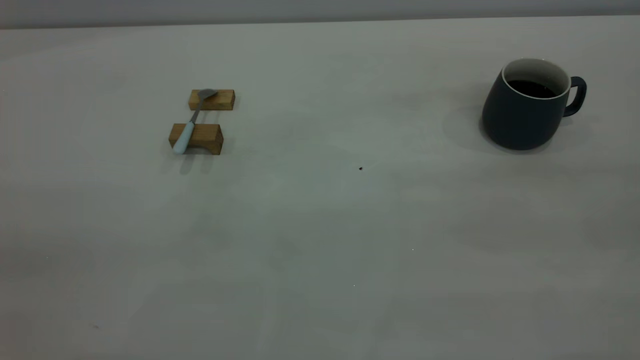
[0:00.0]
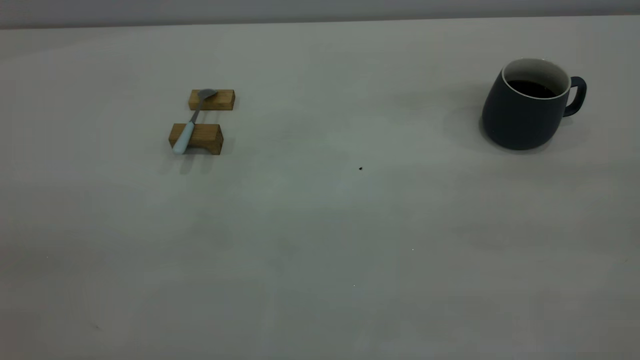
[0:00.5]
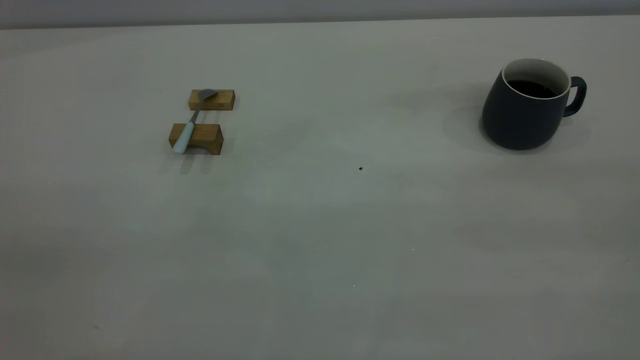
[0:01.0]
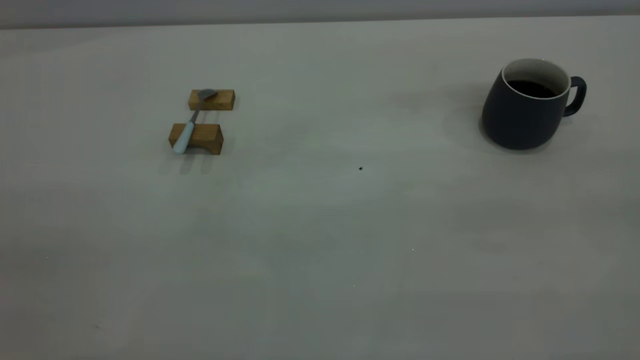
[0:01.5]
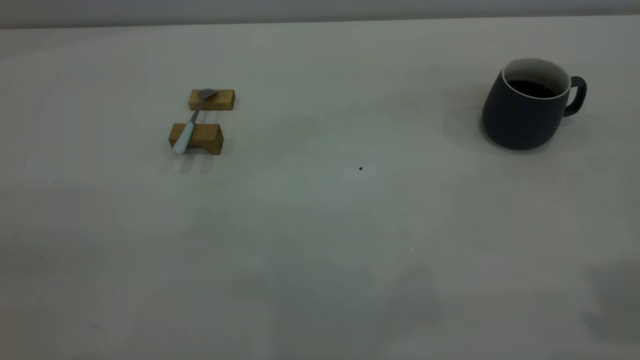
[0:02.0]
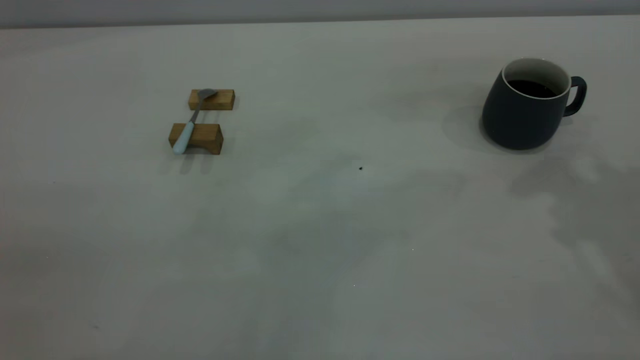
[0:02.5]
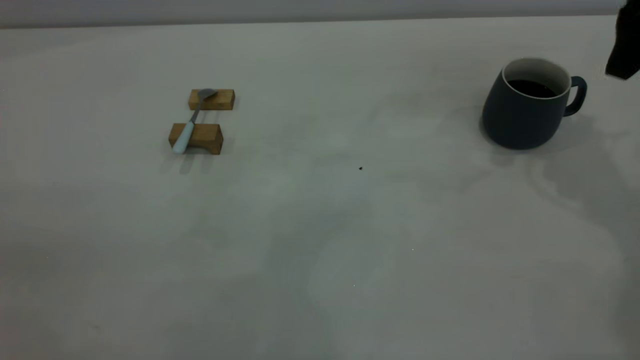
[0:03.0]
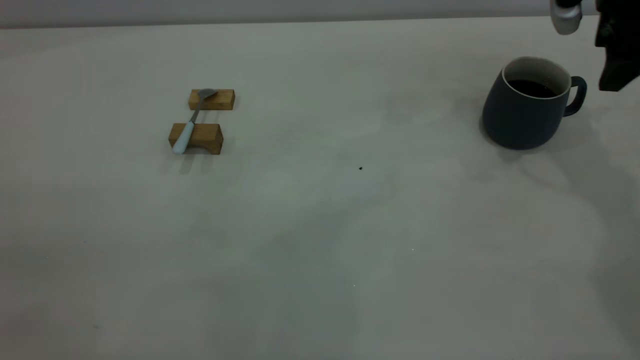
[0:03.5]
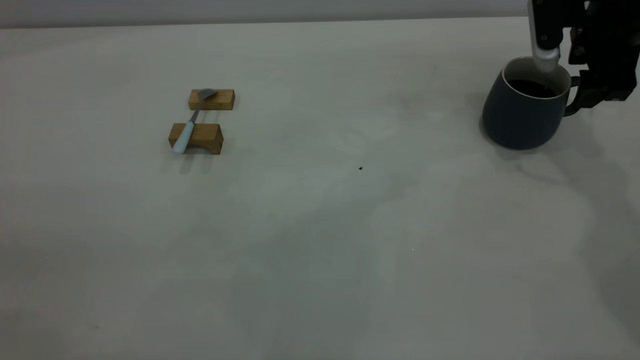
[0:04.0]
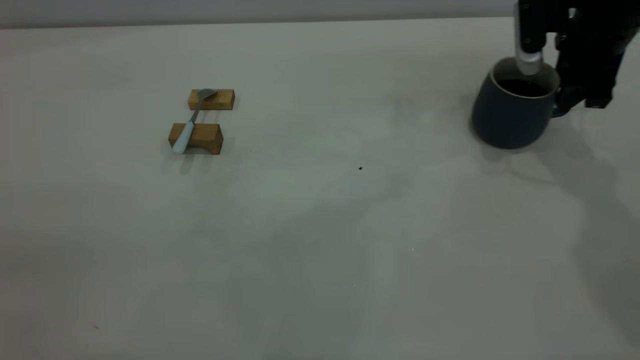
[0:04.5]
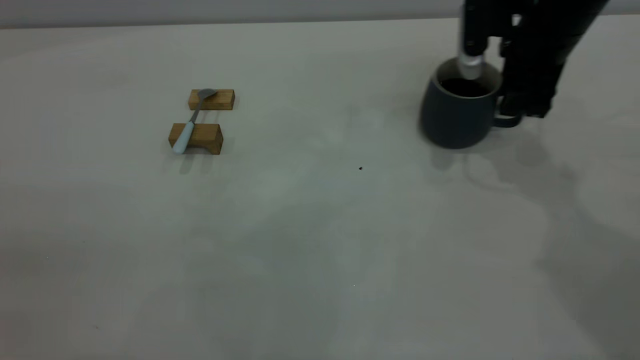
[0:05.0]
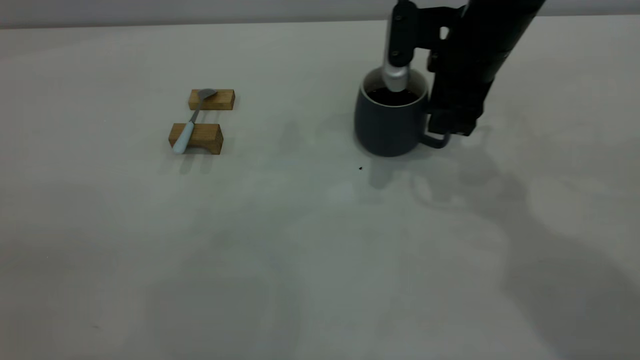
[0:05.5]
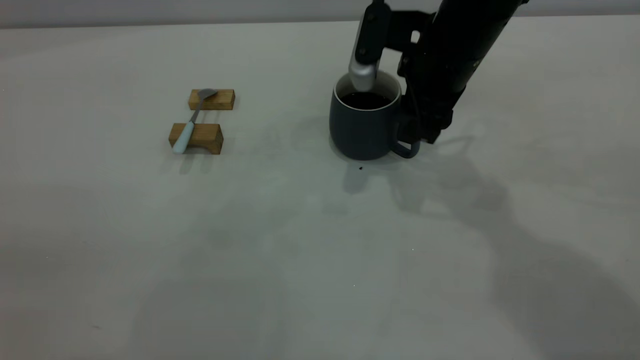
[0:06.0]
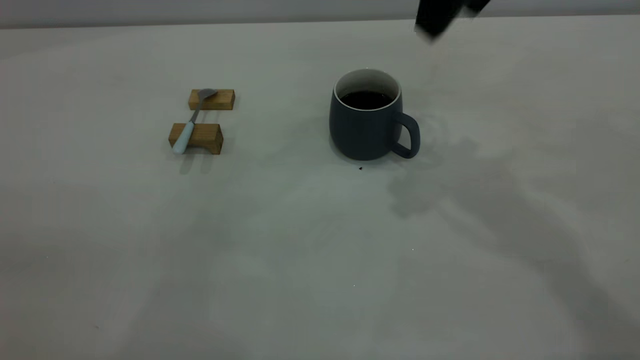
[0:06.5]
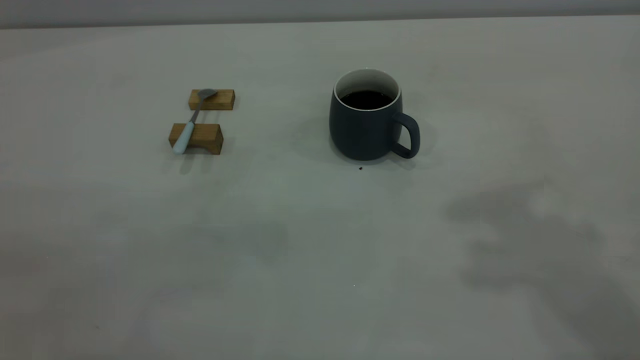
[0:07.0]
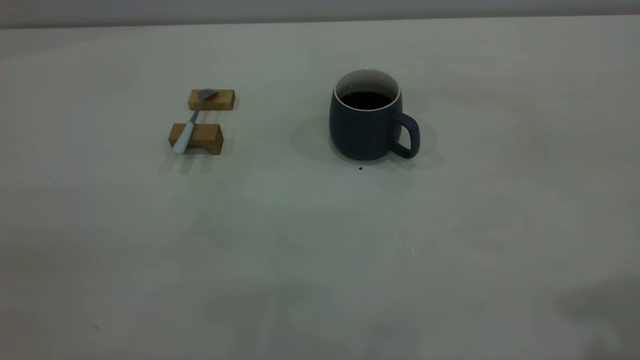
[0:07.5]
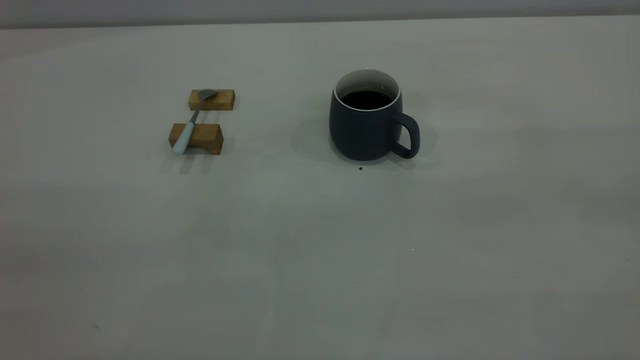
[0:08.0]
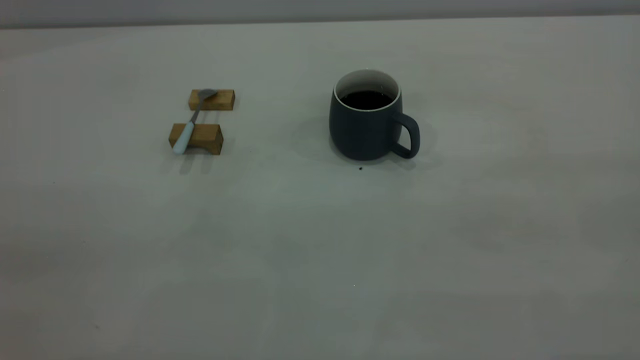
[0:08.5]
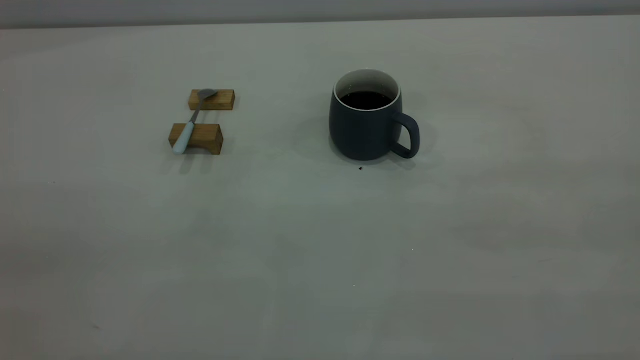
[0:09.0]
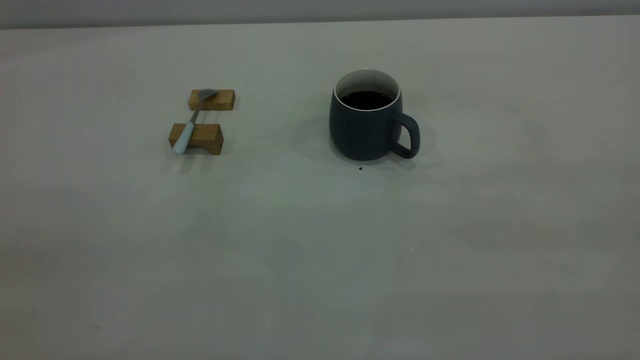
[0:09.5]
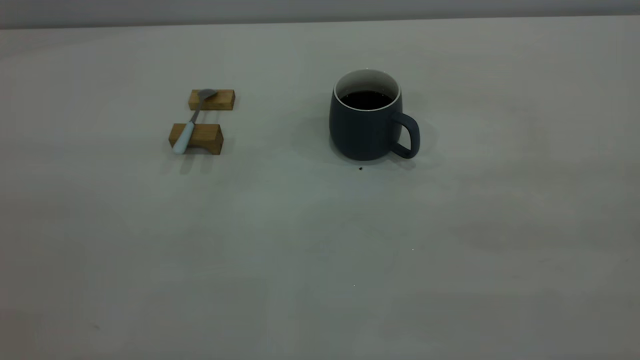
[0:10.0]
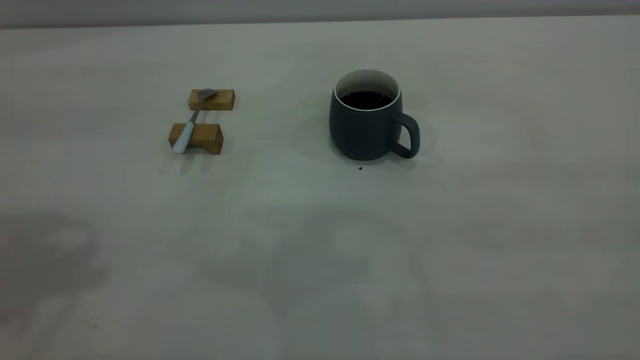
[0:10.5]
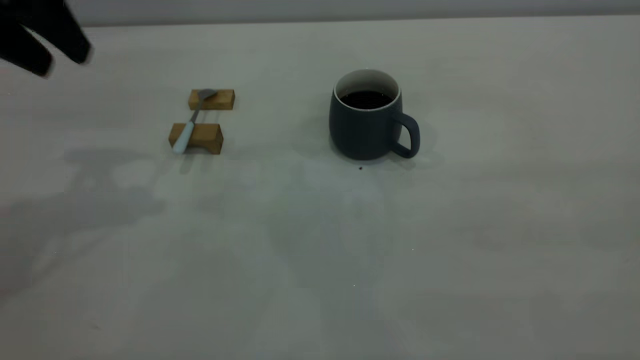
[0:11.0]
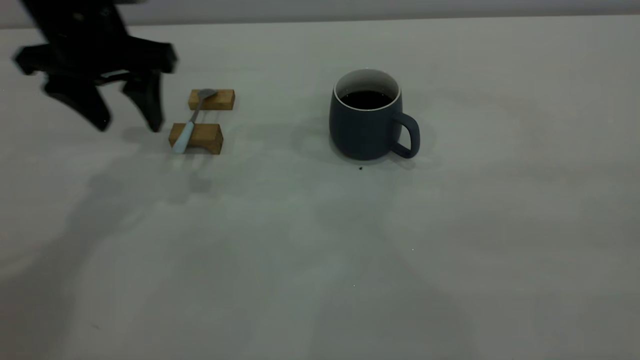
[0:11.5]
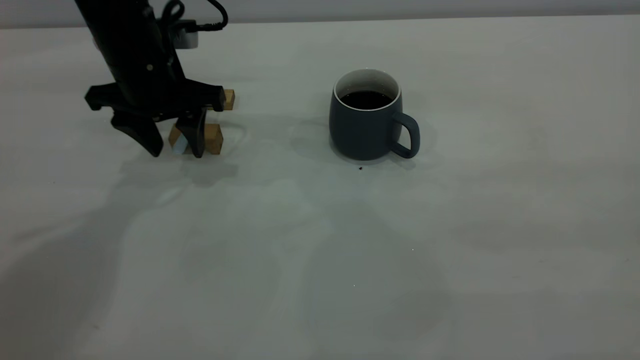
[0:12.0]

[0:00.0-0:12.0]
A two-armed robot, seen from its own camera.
Step, 0:00.0 to 0:06.0: Move the cup with coffee to the center of view.
0:02.0 to 0:04.0: The right gripper is displaced forward and downward by some 35 cm.
0:04.0 to 0:06.0: The right gripper travels to the left by about 20 cm, and closes up.
0:06.0 to 0:08.0: The right gripper heads backward, upward and to the right, covering some 40 cm, and opens.
0:10.0 to 0:12.0: The left gripper shifts about 40 cm forward and downward.

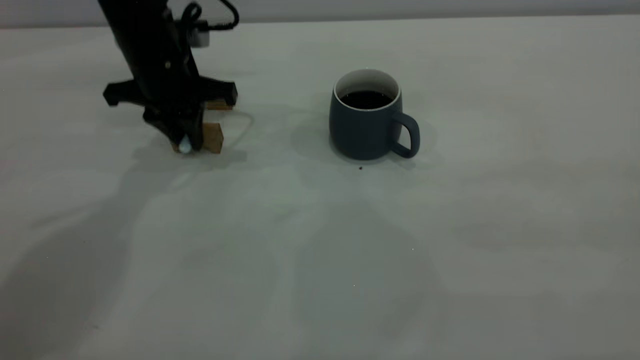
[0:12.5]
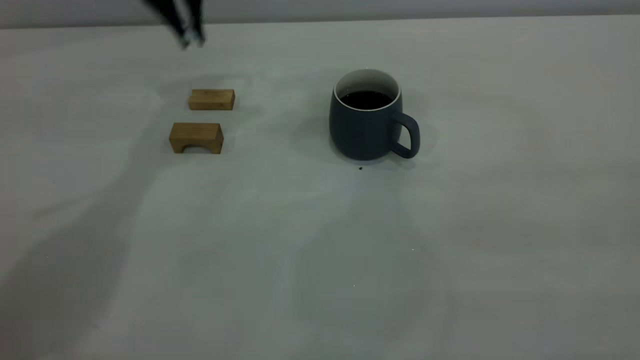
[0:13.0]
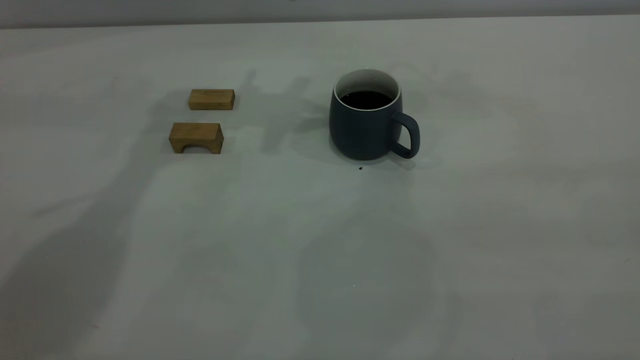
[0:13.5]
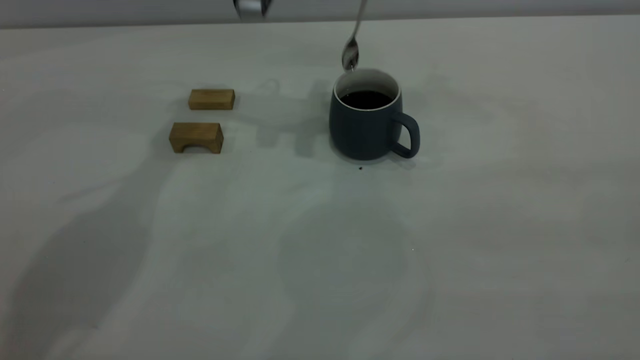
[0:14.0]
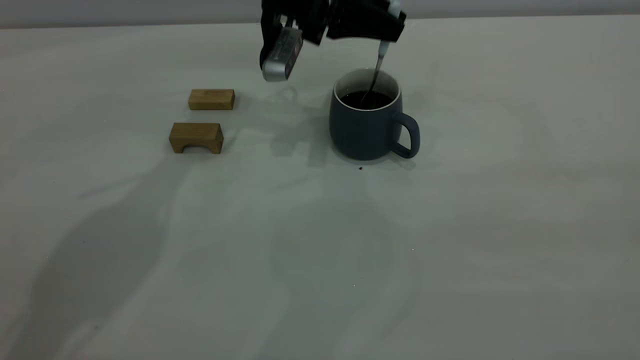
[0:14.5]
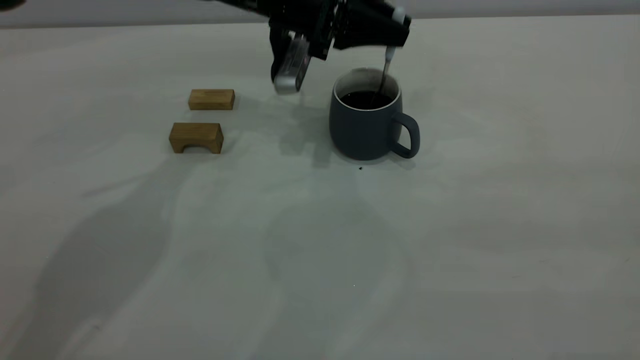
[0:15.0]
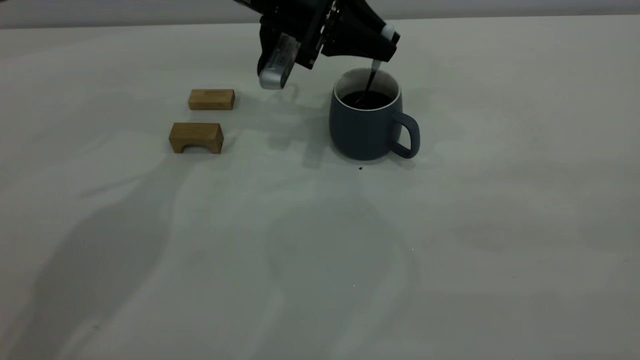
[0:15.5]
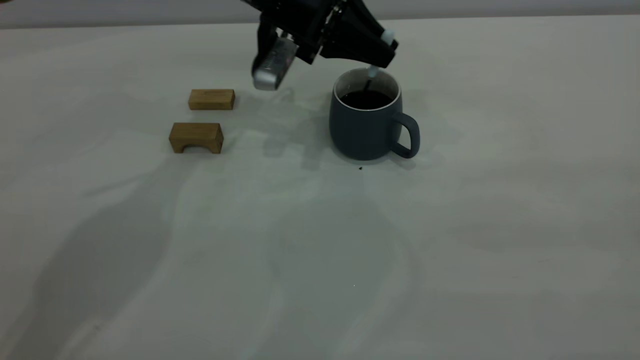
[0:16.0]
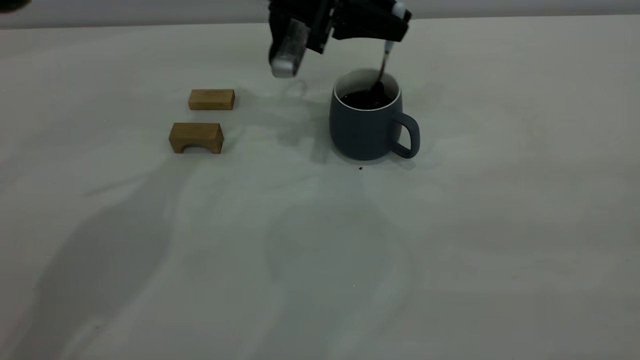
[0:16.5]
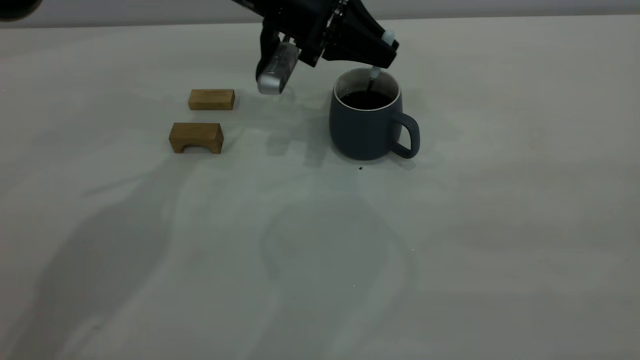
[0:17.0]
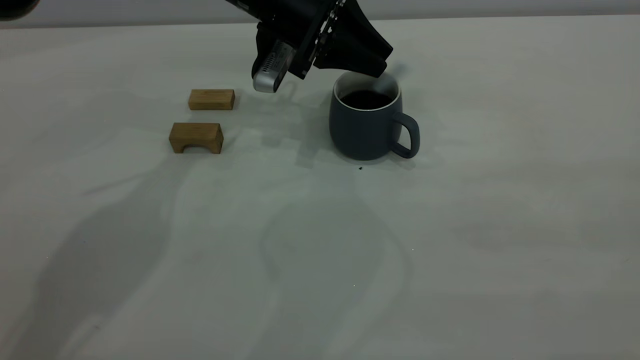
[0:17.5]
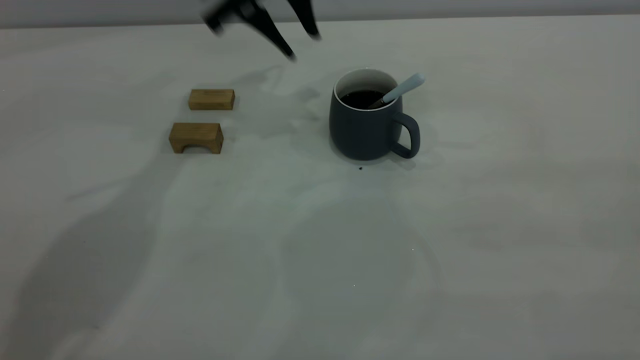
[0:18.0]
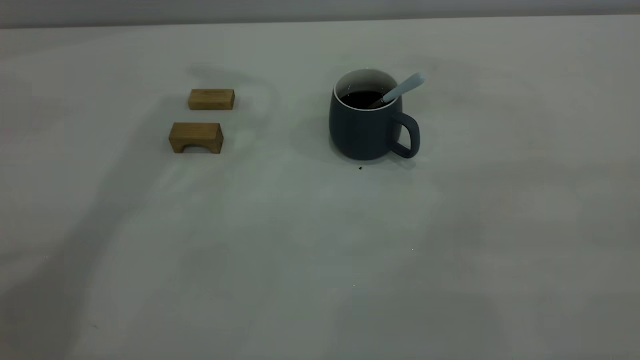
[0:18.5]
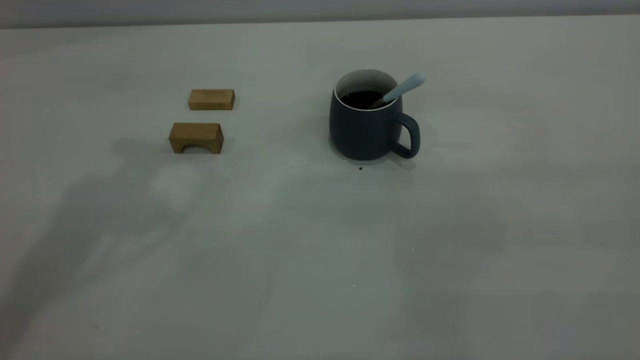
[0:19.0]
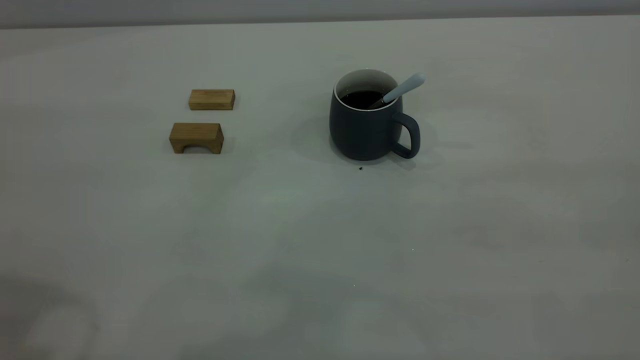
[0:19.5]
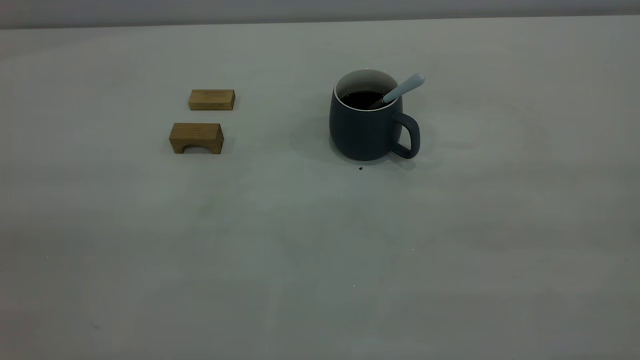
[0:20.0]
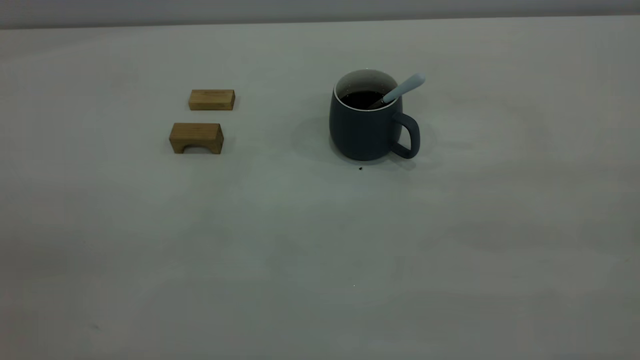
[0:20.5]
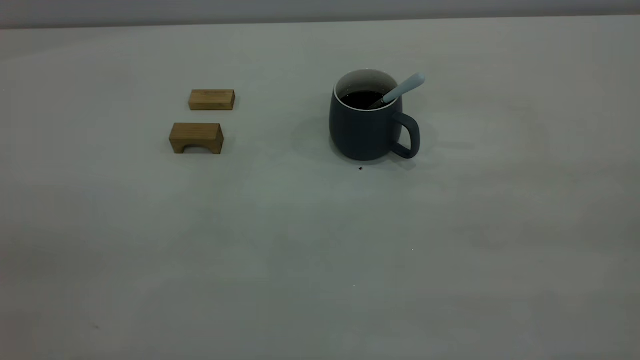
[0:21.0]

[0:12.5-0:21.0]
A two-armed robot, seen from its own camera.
Step, 0:13.0 to 0:17.5: Stir the coffee in the cup.
0:12.5 to 0:14.5: The left gripper is displaced to the right by about 10 cm, and reaches approximately 20 cm upward, then returns.
0:14.5 to 0:16.5: The grippers make only small movements.
0:16.5 to 0:19.0: The left gripper shifts roughly 30 cm upward, backward and to the left, and opens its fingers.
